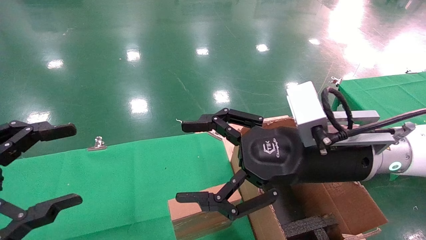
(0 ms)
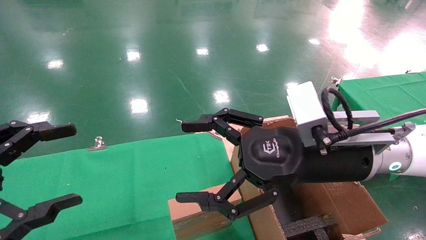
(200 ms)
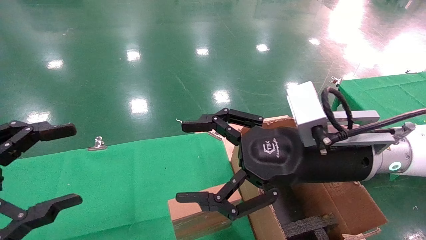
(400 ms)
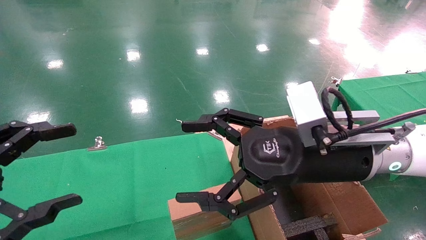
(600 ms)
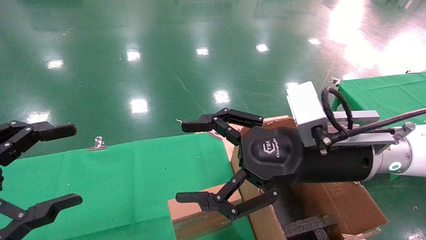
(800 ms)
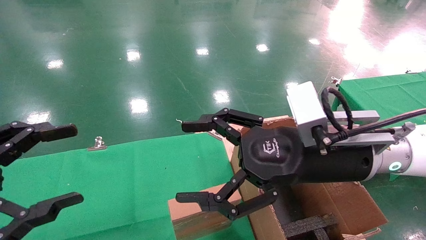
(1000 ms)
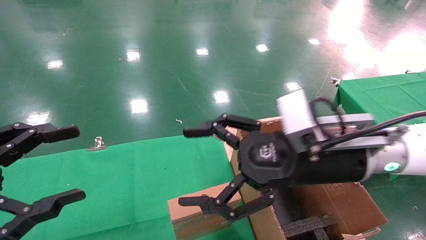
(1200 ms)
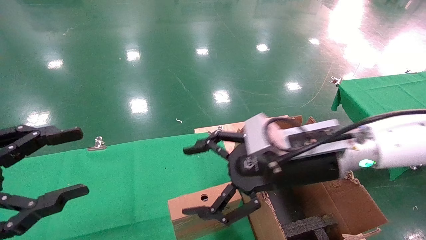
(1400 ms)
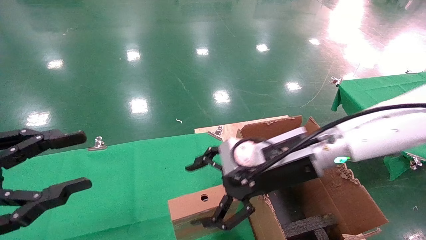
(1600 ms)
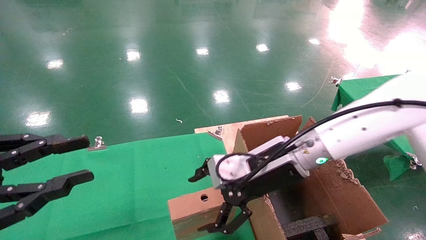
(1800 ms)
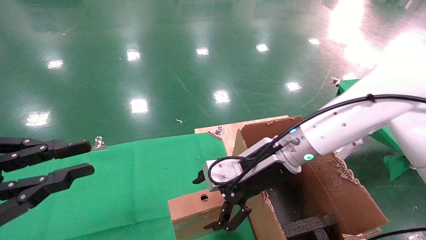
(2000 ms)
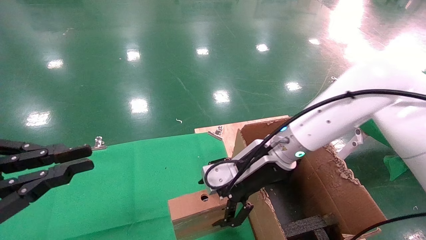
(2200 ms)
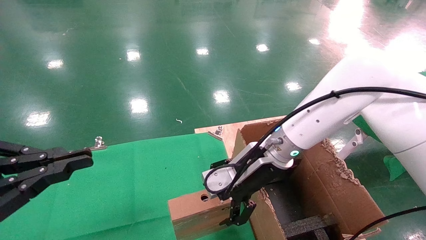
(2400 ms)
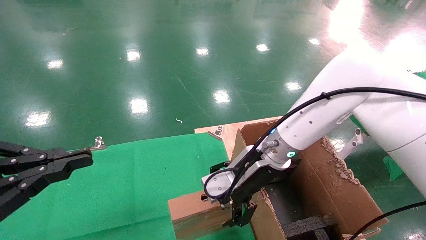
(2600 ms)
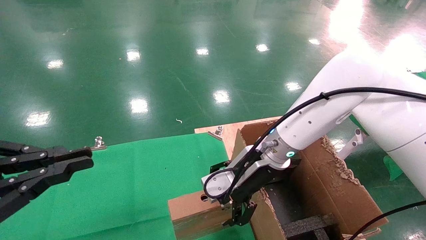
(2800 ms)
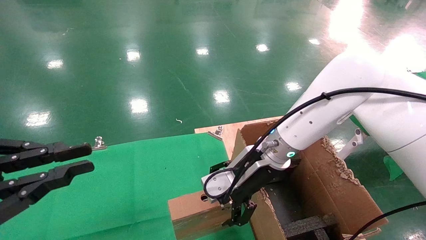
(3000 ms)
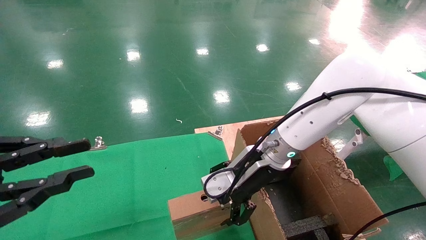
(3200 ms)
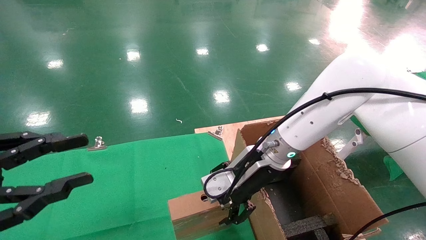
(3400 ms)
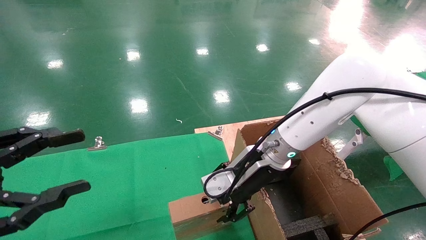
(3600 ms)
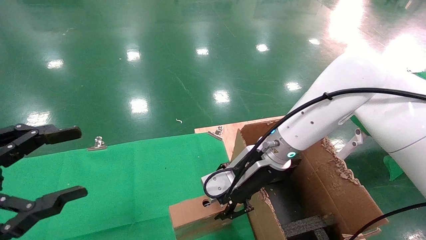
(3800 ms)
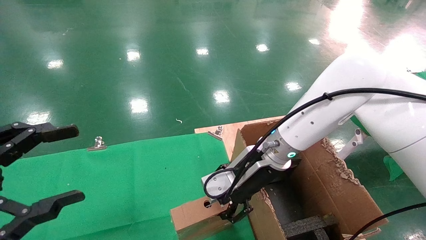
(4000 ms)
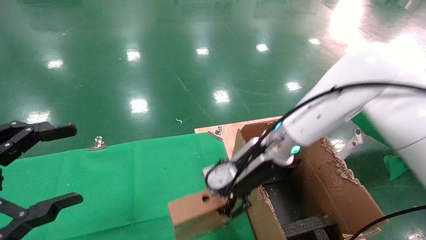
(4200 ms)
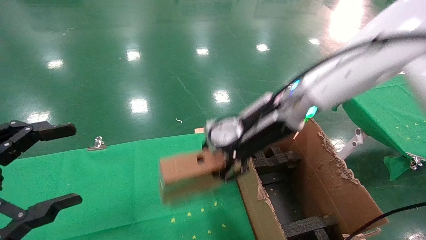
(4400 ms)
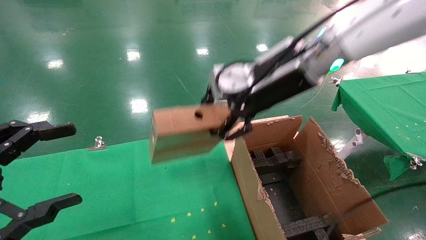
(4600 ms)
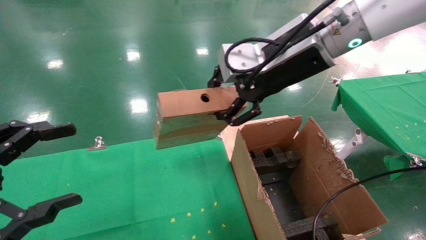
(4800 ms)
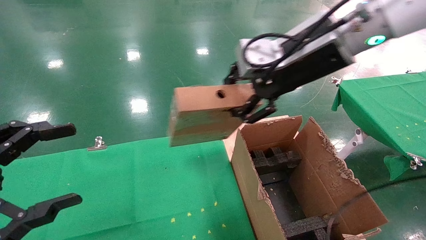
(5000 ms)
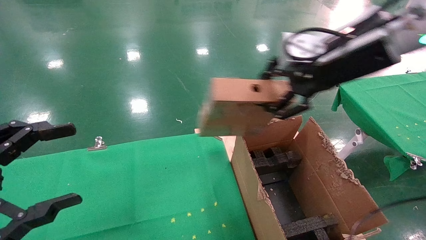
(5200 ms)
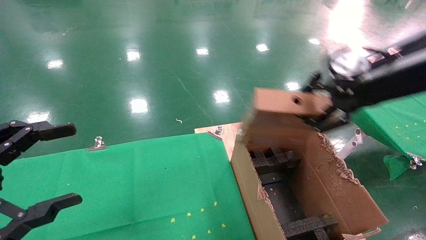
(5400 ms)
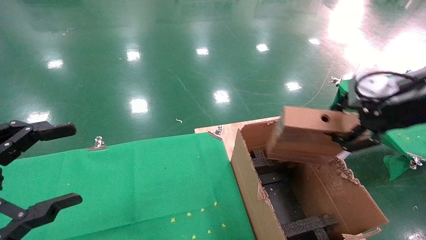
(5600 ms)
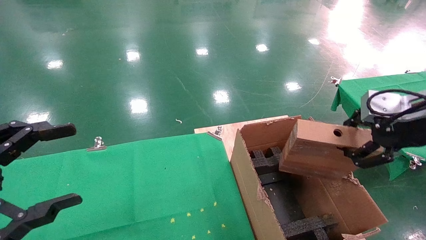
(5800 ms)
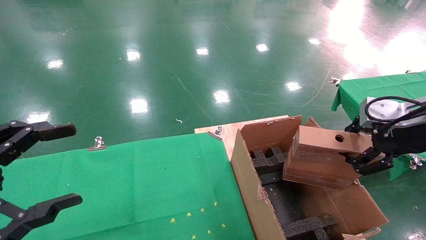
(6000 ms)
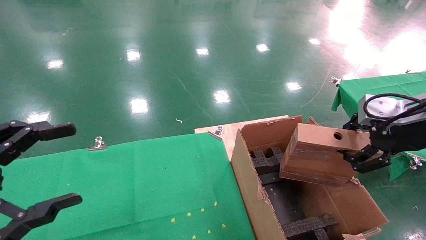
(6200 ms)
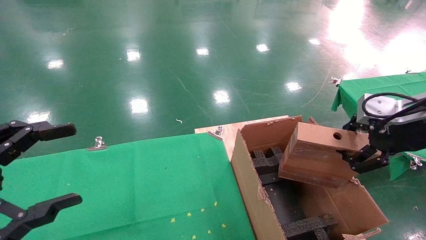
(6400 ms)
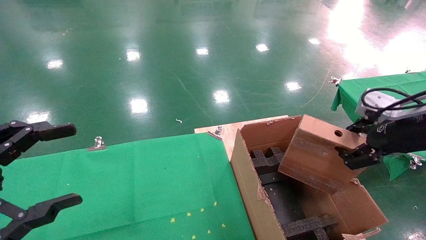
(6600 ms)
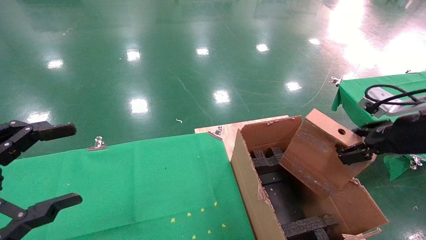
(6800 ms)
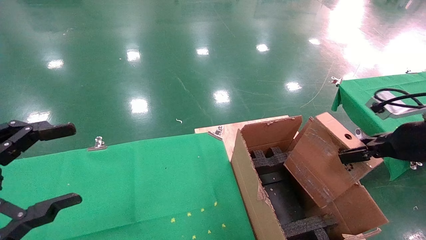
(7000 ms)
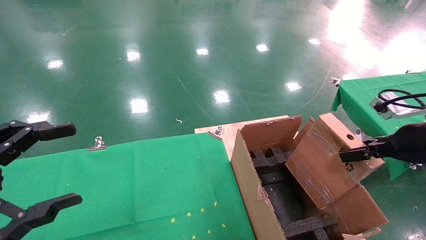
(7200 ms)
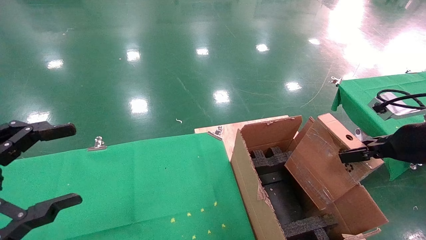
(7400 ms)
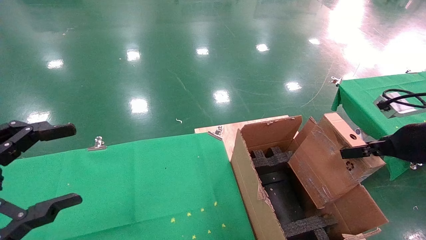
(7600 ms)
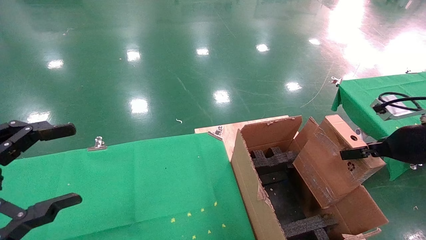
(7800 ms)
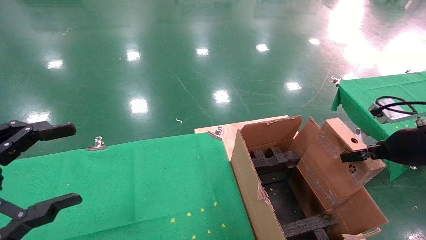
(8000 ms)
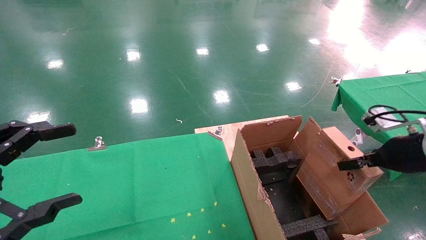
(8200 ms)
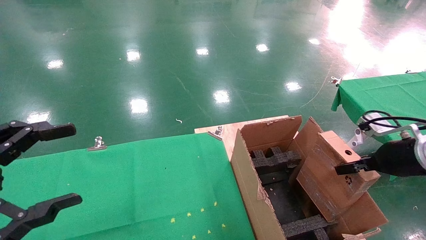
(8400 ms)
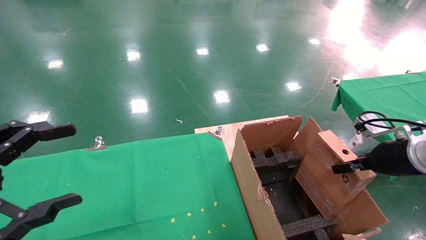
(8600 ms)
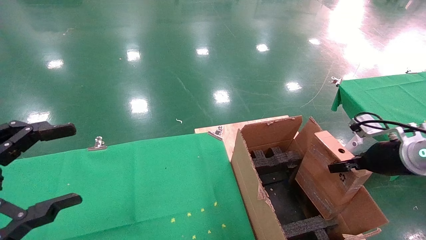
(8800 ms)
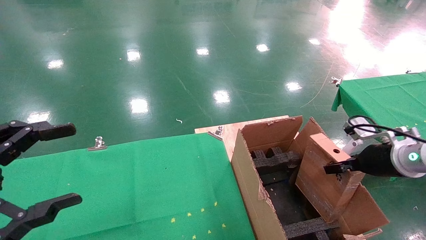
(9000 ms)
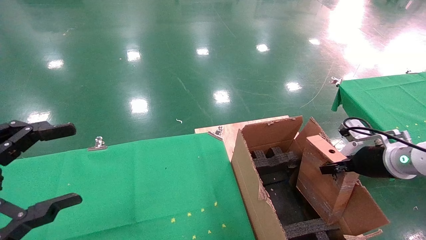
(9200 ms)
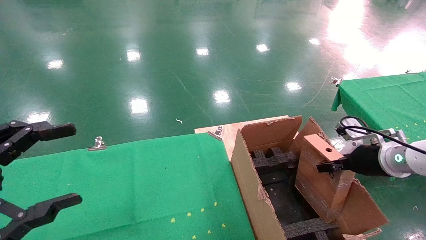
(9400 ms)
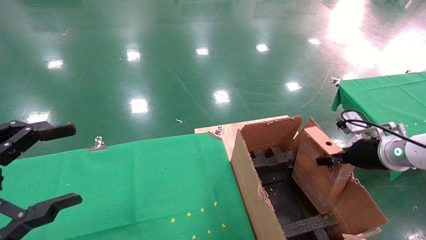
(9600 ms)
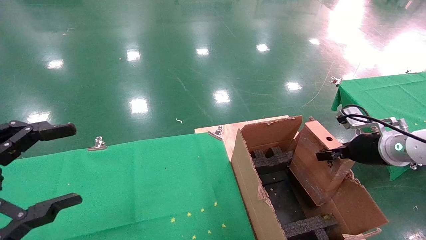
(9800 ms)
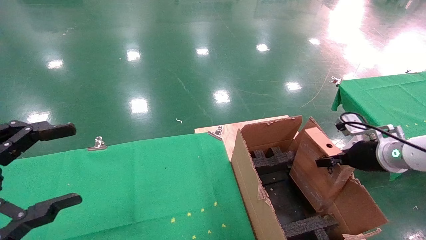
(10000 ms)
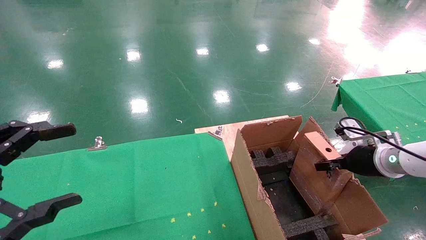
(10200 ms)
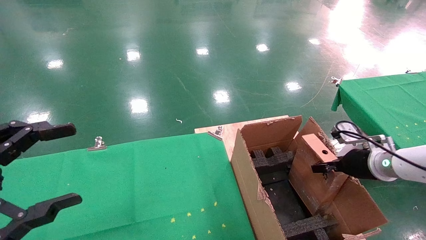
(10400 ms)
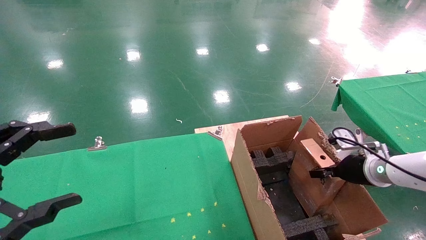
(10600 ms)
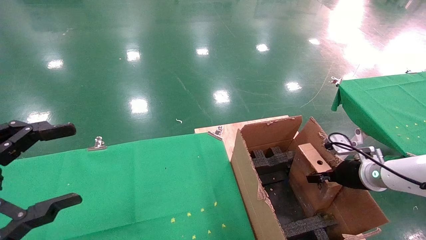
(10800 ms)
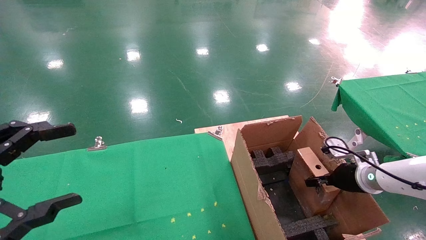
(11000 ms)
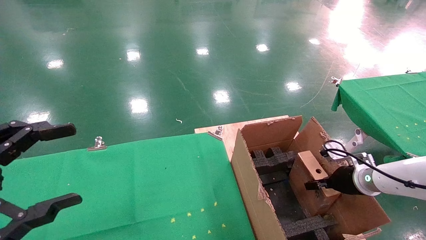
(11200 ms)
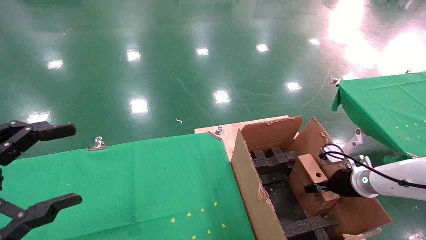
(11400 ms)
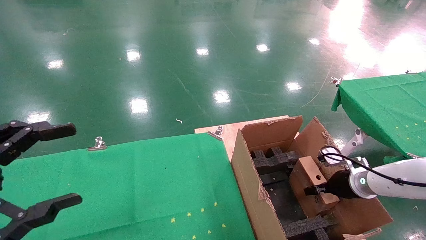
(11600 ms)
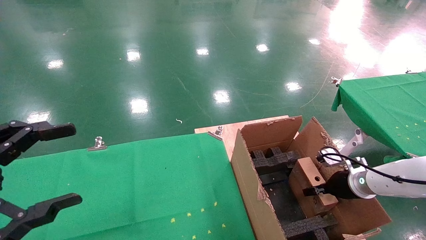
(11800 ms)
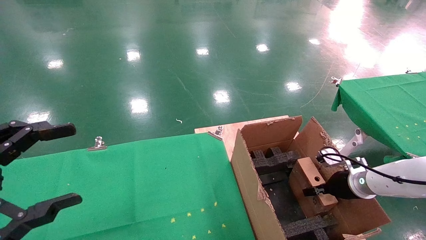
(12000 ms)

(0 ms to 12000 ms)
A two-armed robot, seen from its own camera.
Task of the whole recording: using a robotic arm to pick up a cardboard box and palace it the carton.
Step, 1400 ms - 3800 ms: Pick up the mouse and the power cord paper box.
0 ms - 1600 ms: The right gripper moves forward, roughly 5 cm.
1600 ms - 3000 ms: The left gripper closes up, while the right gripper goes roughly 5 cm forward.
3000 ms - 4400 ms: The left gripper opens; the right gripper heads upward, covering roughly 10 cm, and closes its fingers.
4400 ms - 6000 ms: The right gripper moves to the right and backward, about 25 cm.
6000 ms - 7600 ms: The right gripper goes approximately 5 cm downward.
7600 ms - 9000 ms: The right gripper heads downward and forward, covering some 10 cm.
9000 ms - 10400 ms: The right gripper shifts by about 5 cm.
10400 ms - 12000 ms: The right gripper travels downward by some 10 cm.

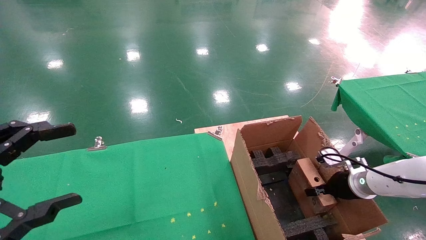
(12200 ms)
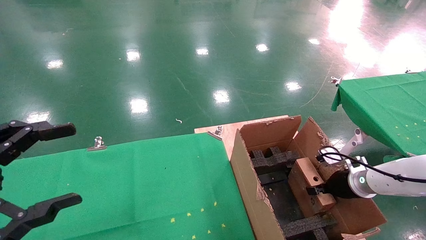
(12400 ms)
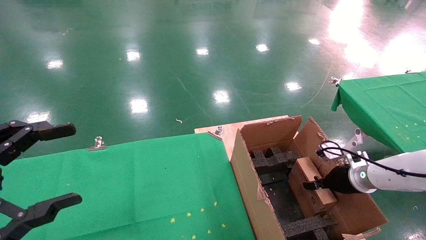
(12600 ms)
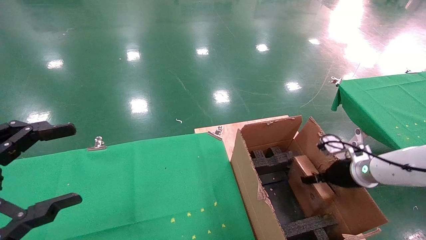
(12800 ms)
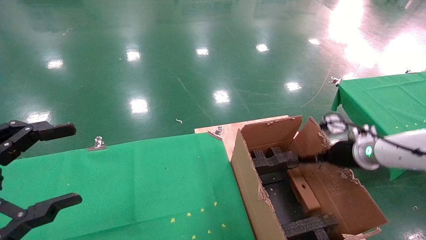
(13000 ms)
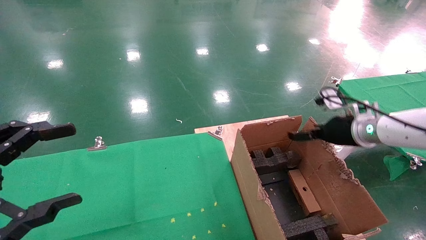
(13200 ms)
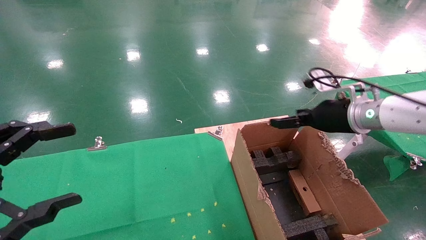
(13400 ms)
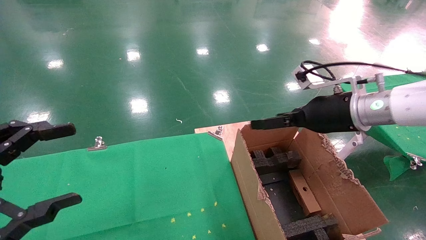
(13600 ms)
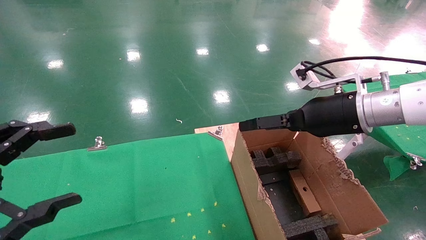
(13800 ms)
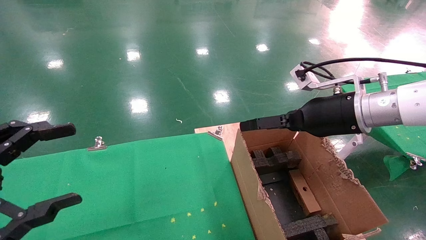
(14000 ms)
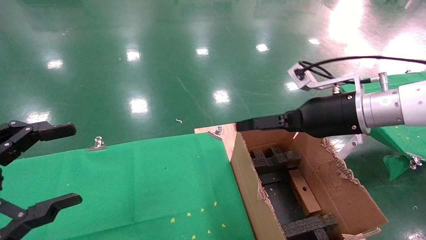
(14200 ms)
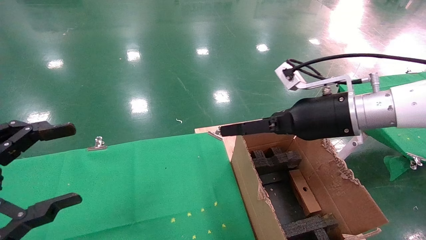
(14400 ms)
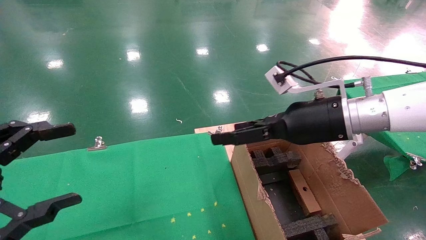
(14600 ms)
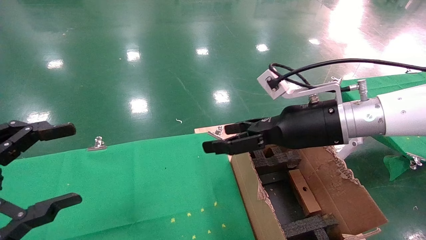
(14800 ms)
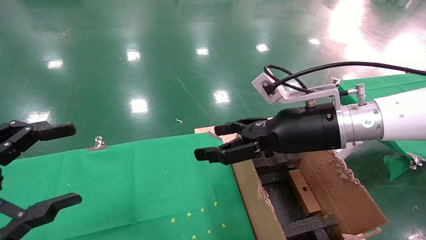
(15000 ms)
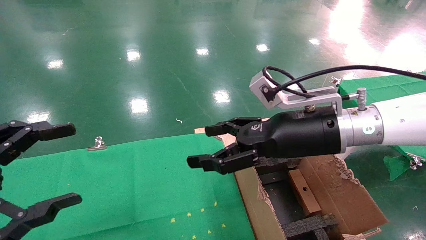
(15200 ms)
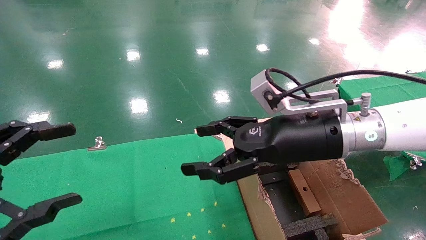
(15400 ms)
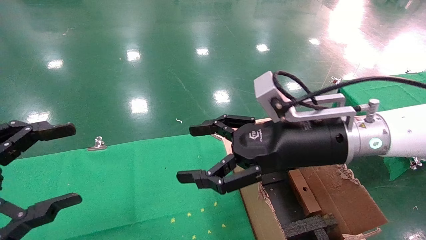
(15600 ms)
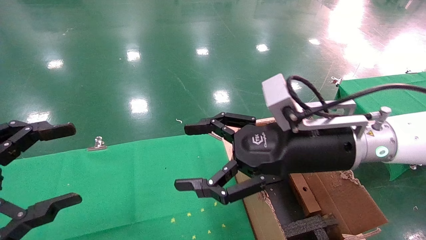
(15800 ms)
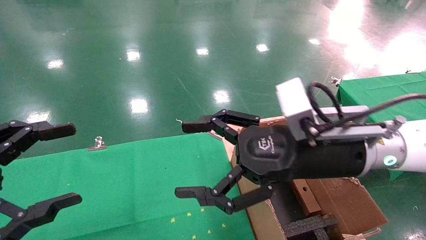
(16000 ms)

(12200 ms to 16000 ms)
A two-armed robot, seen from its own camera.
Task of the whole recording: using a robotic arm to pick up a cardboard box and palace it the carton.
12200 ms - 13400 ms: The right gripper shifts approximately 20 cm upward and to the left, and opens its fingers.
13400 ms - 14800 ms: The right gripper goes some 10 cm to the left and backward.
14800 ms - 16000 ms: The right gripper moves backward, some 5 cm.

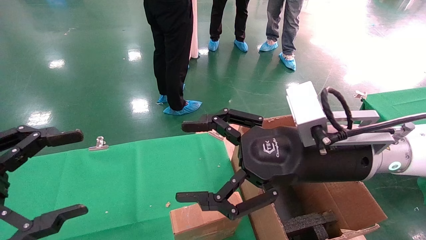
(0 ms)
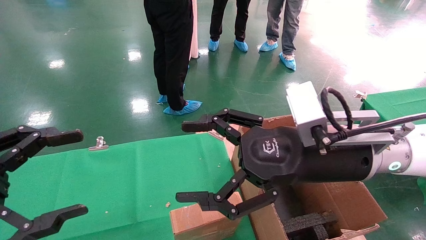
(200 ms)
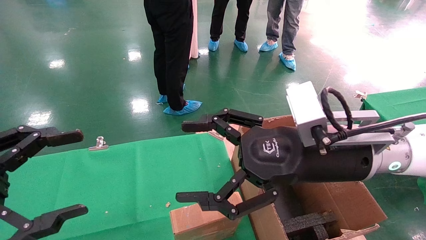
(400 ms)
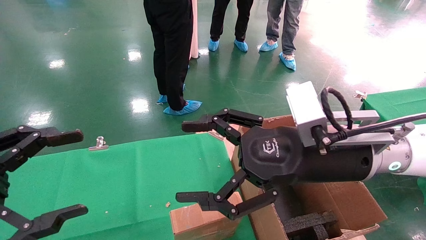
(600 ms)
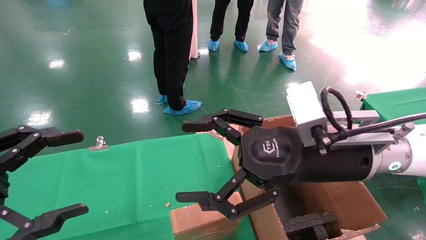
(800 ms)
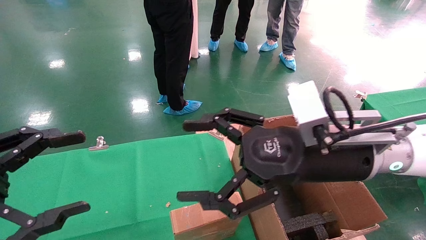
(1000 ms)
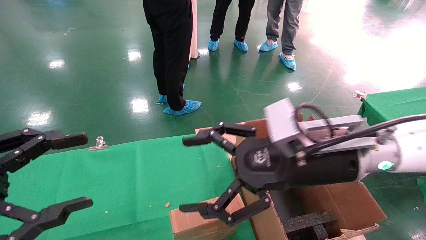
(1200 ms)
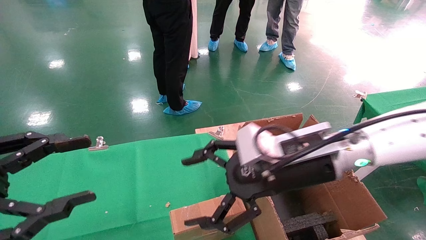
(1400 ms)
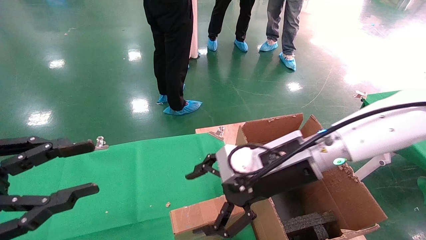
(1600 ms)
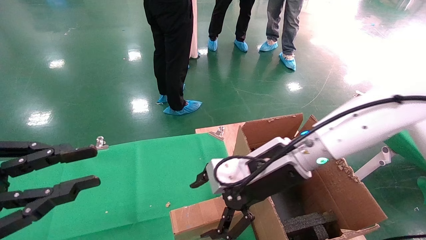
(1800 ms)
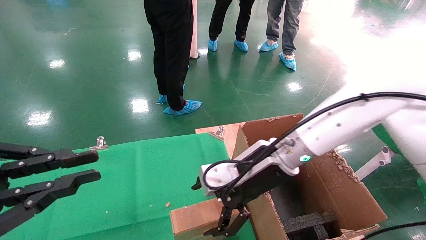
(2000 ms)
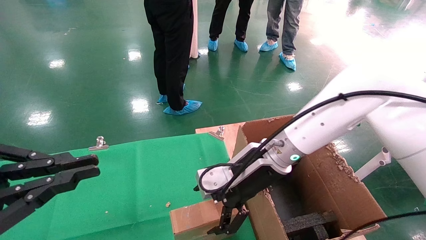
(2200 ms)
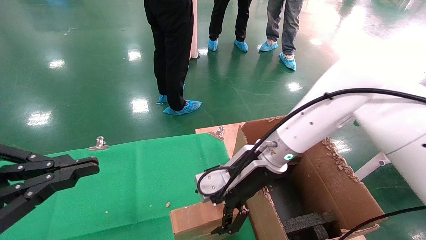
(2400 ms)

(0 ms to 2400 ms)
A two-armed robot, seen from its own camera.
Task of the whole recording: using a robotic arm to pick up a cardboard box and palace it the carton.
0 ms - 1200 ms: The grippers make only small movements.
1200 ms - 2400 ms: The right gripper shifts some 10 cm forward and to the left. The left gripper closes.
